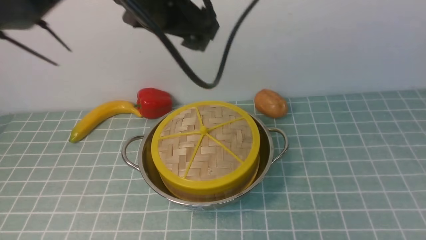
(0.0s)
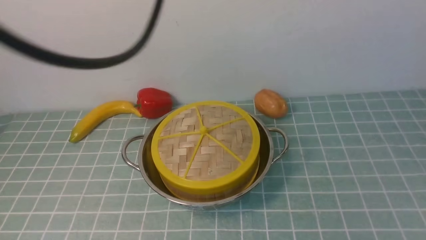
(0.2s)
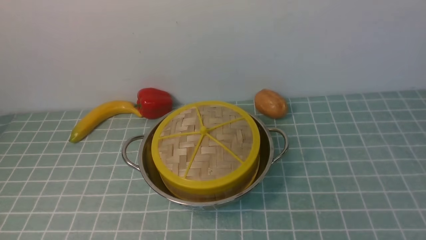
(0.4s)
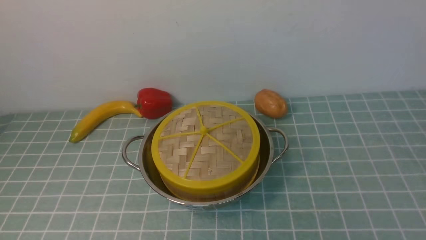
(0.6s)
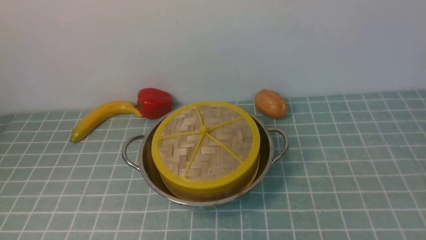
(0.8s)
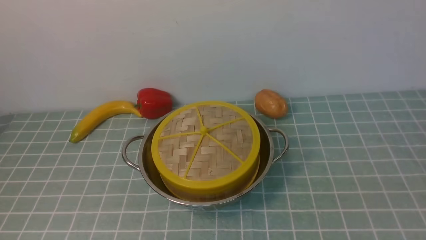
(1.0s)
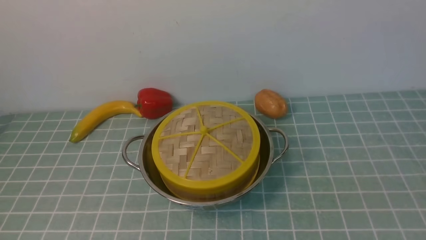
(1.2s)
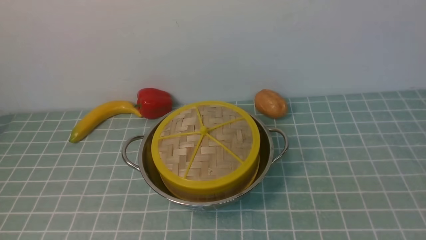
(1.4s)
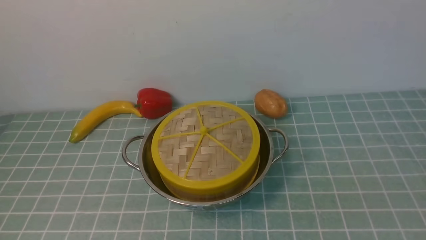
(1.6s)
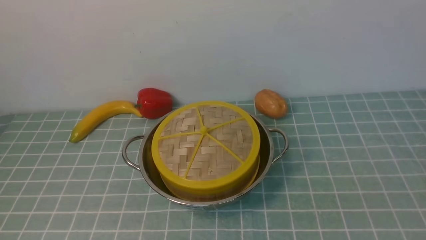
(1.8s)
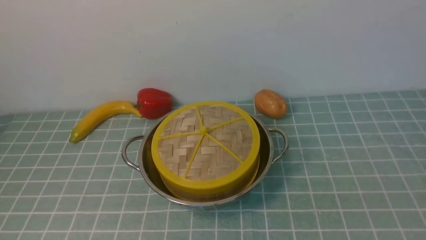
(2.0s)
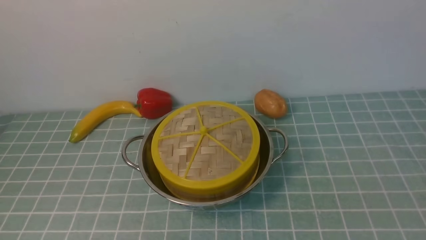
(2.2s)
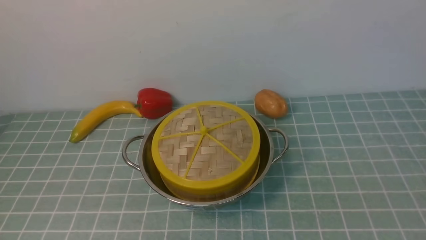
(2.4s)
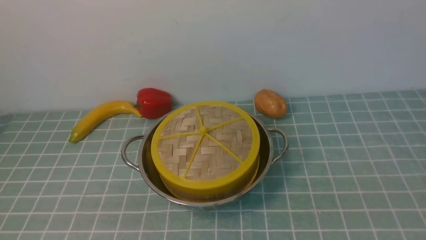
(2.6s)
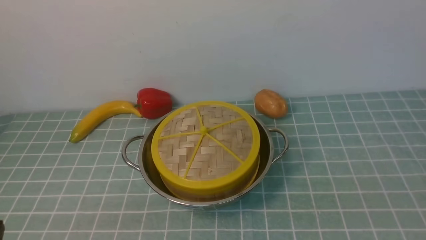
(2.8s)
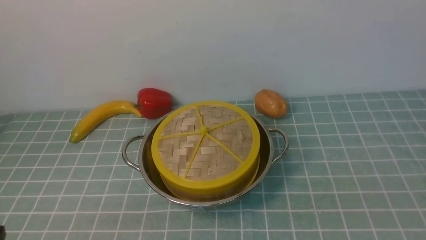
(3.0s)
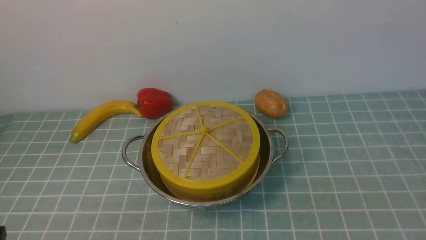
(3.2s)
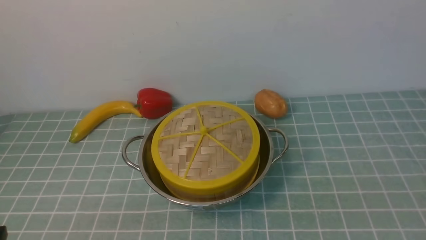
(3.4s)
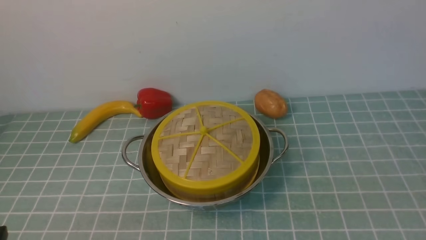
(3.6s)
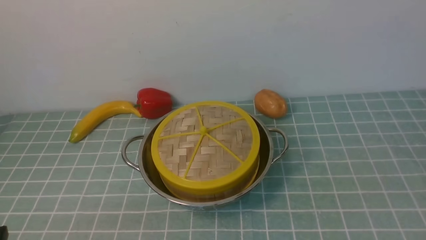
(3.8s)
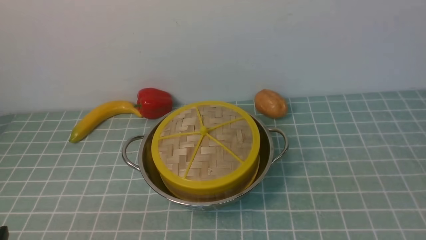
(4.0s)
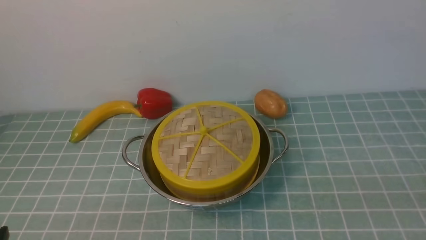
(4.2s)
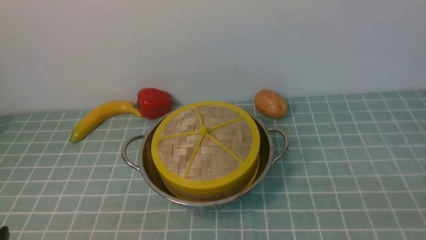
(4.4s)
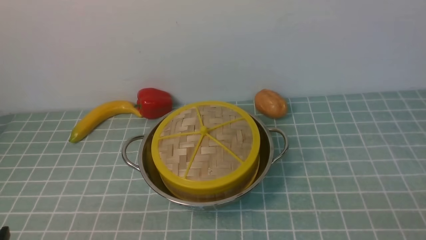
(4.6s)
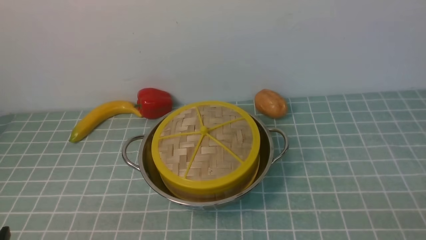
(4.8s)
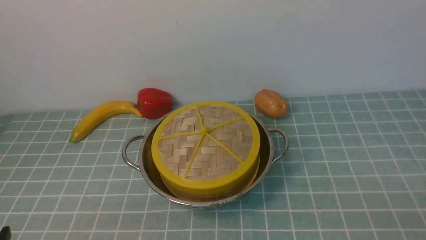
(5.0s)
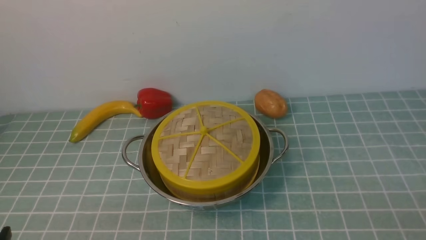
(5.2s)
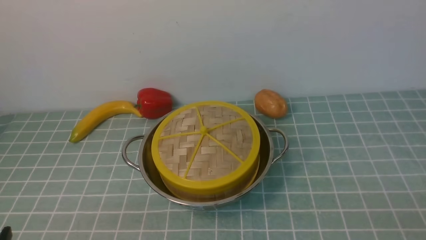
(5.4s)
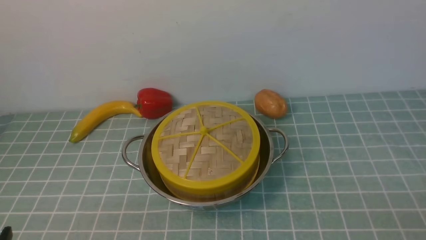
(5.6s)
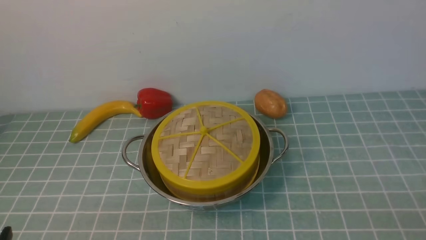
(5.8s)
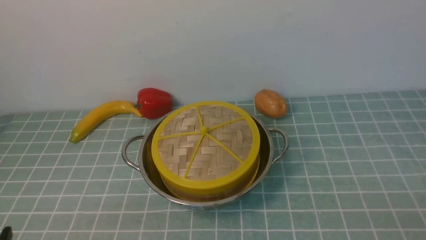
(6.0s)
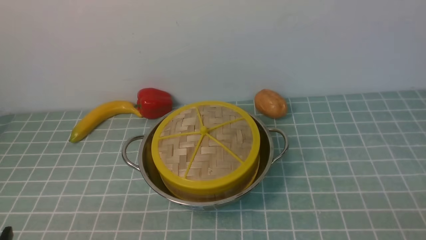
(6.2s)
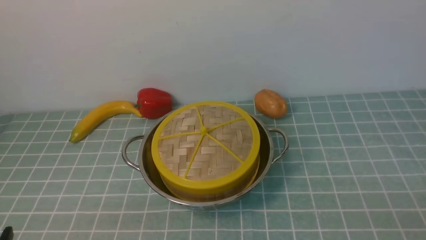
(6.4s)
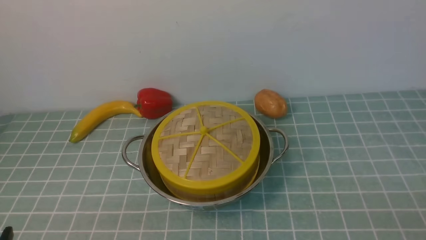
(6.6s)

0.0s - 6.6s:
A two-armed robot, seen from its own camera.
Task of the whole recording: place the steamer in the pot on the blue tablecloth, and put the lid on the steamer.
0.0s - 1.6s: The right gripper heads downward, covering some 20 cm, and closes its fingers. The left gripper travels backward and to the left by some 35 cm, and closes up.
5.0s - 6.6s: Neither gripper changes place.
